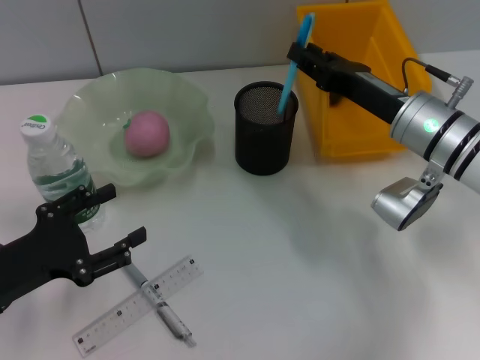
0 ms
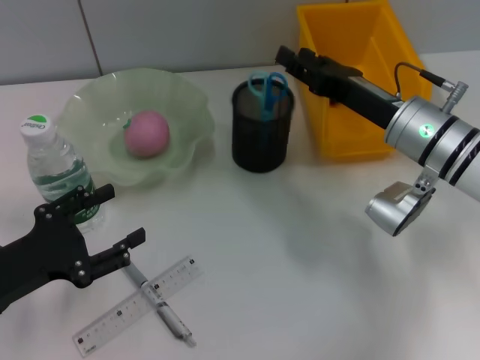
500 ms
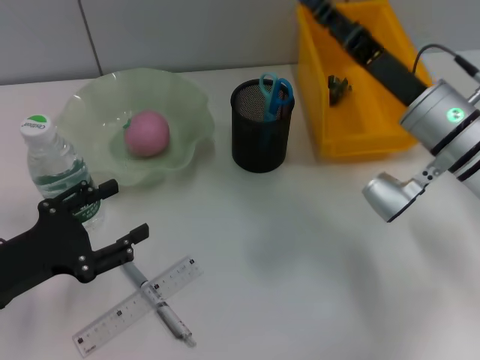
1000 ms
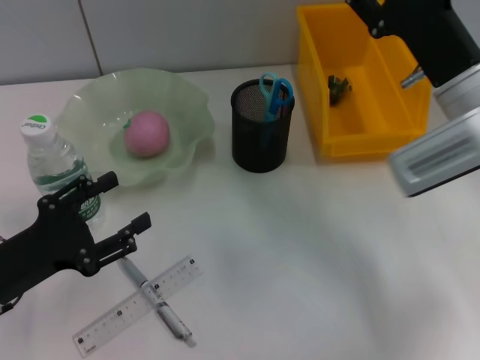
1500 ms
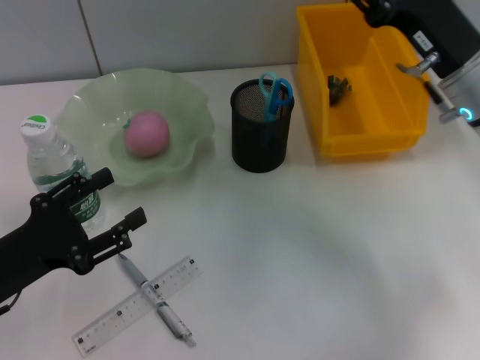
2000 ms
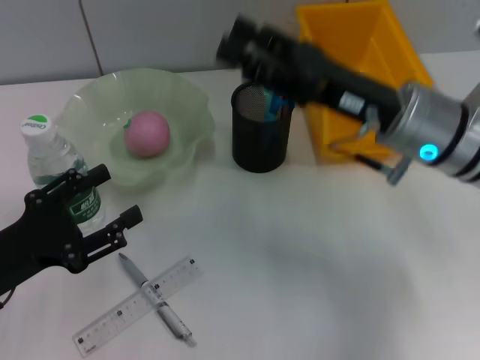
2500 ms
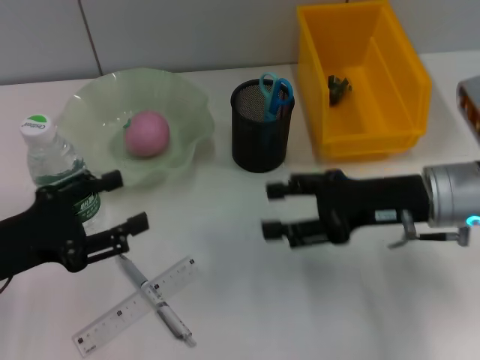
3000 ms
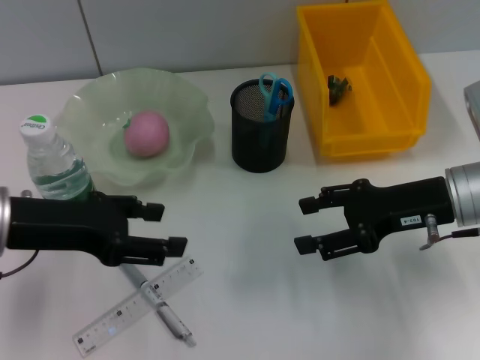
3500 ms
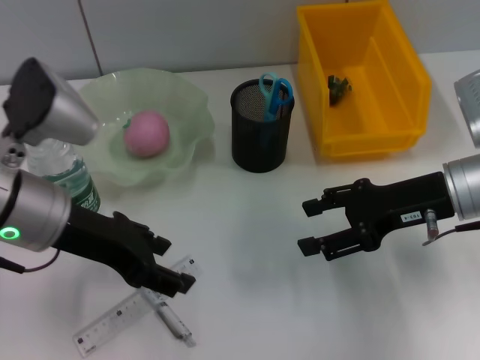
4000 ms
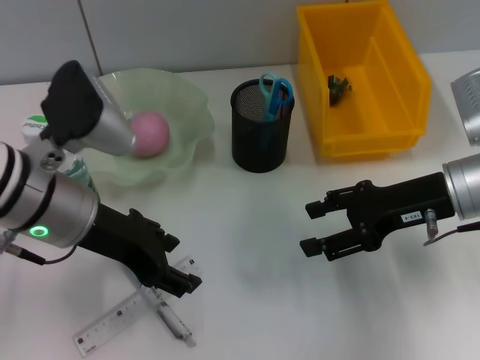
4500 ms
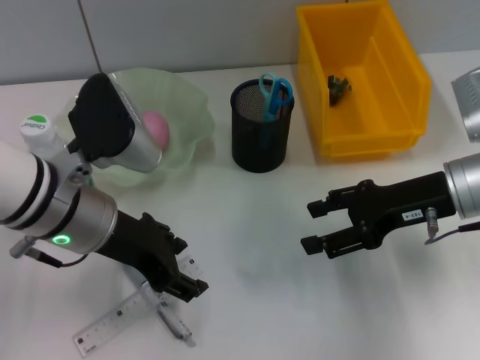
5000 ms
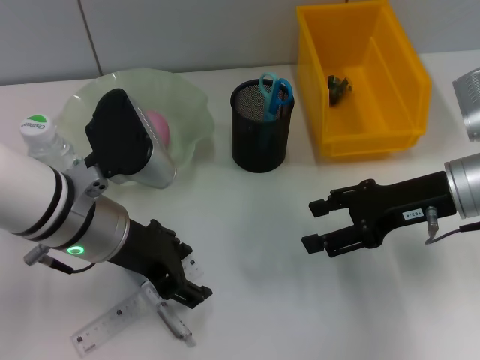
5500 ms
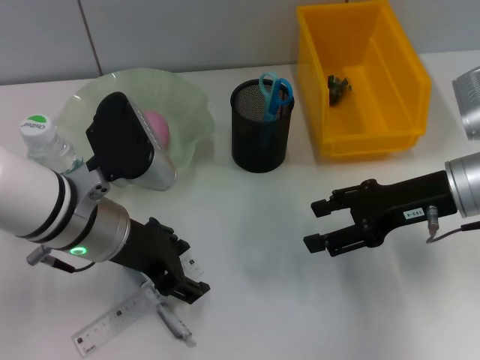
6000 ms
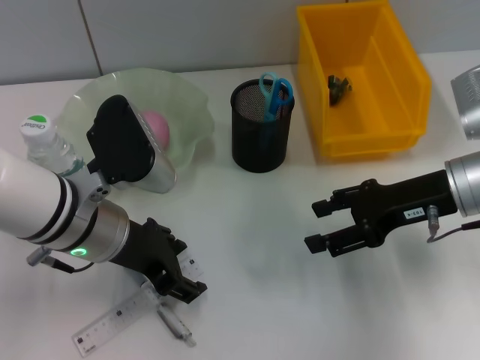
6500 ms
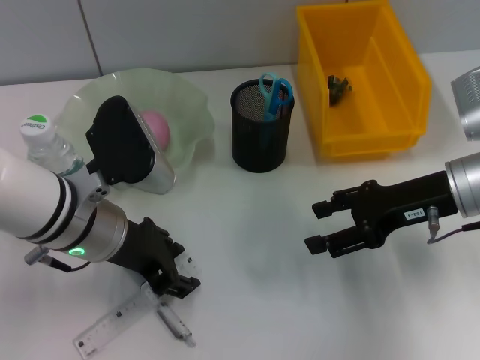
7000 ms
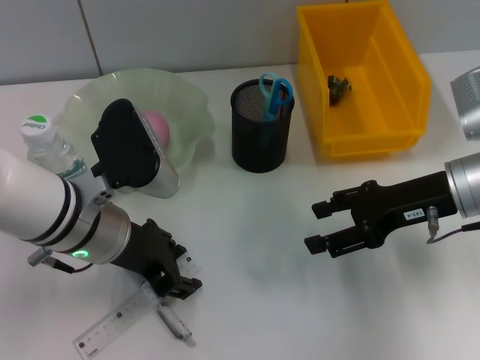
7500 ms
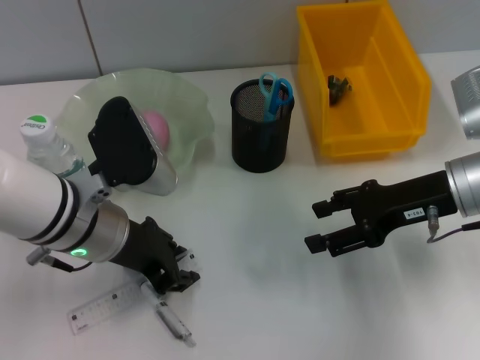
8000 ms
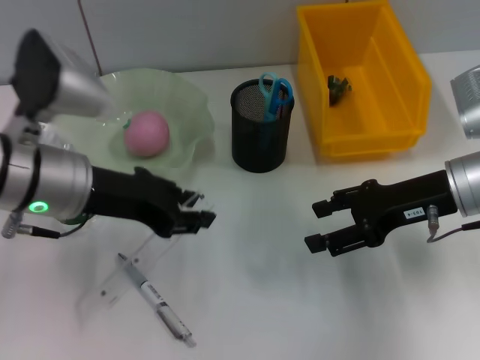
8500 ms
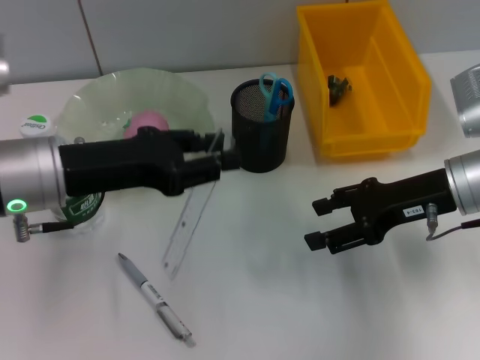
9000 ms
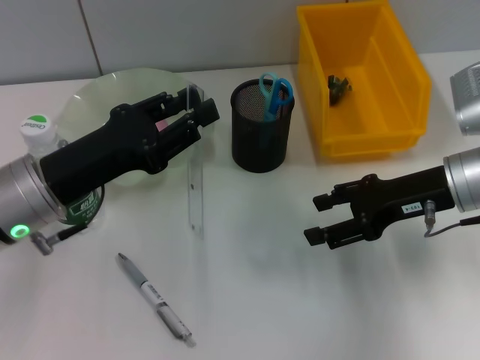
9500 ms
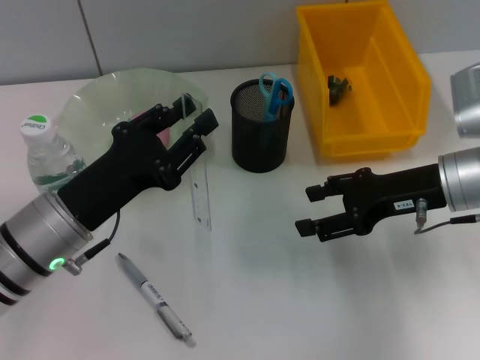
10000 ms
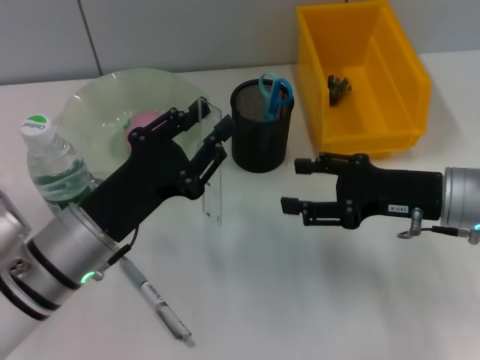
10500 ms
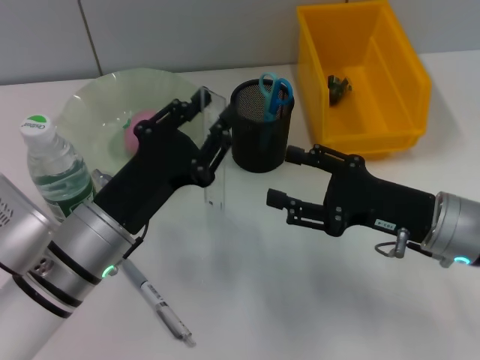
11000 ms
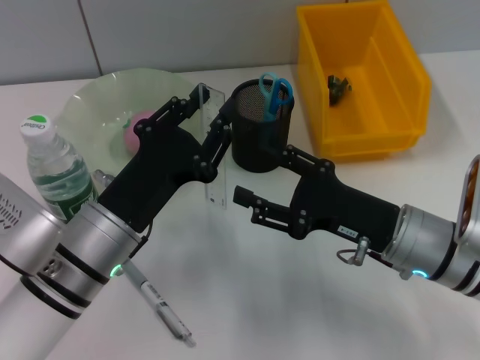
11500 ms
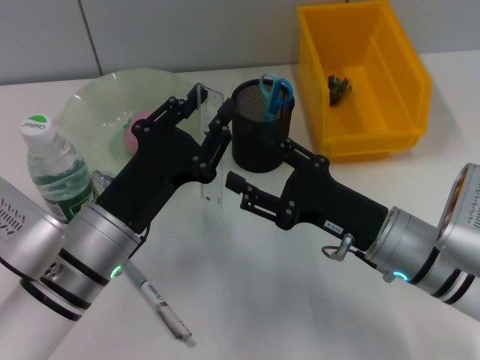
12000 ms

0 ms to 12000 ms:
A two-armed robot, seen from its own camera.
Step, 1000 ms to 7500 ms: Grab the ruler with the left hand.
0 ms to 2000 ms: The right gripper heads upward, covering approximately 5 cm, and opens.
2000 ms to 4000 ms: The left gripper is displaced upward, to the right and forward by roughly 15 cm.
4000 ms to 6000 ms: The left gripper moves approximately 5 cm.
6000 ms to 8000 ms: The left gripper closes up.
8000 ms to 10000 ms: The left gripper changes place by approximately 5 cm.
10000 ms to 12000 ms: The right gripper shifts roughly 10 cm to the left, backward and downward.

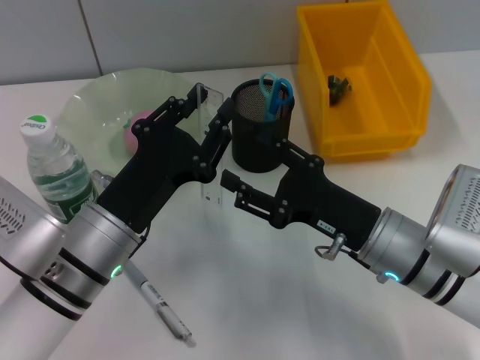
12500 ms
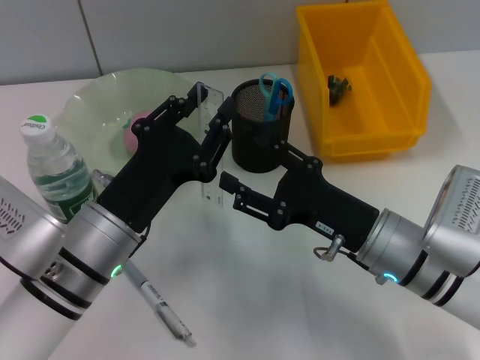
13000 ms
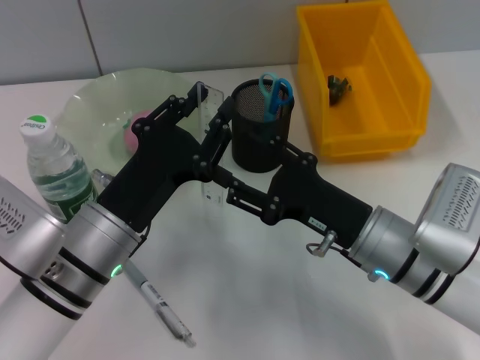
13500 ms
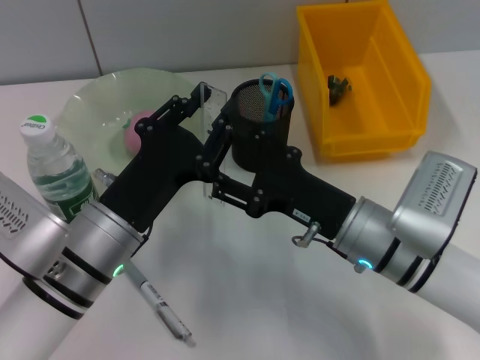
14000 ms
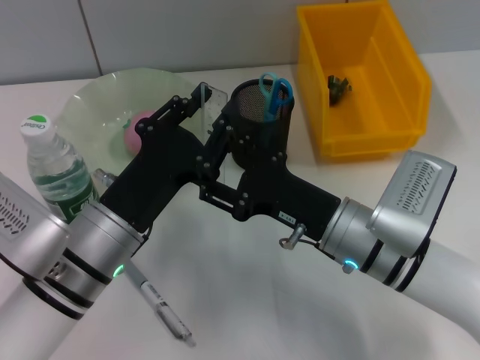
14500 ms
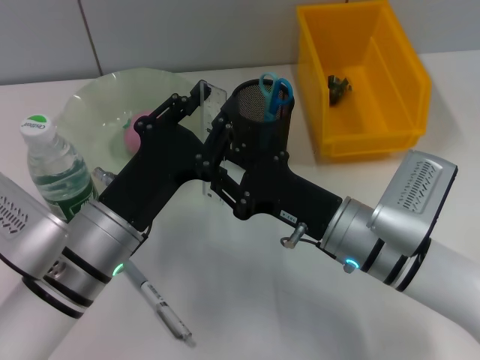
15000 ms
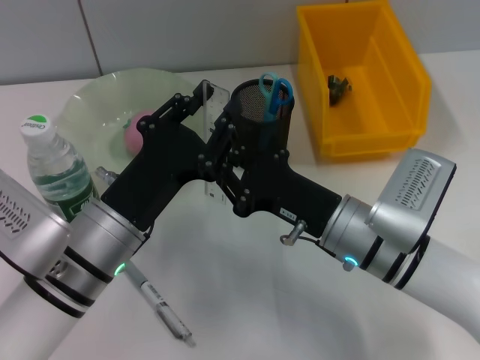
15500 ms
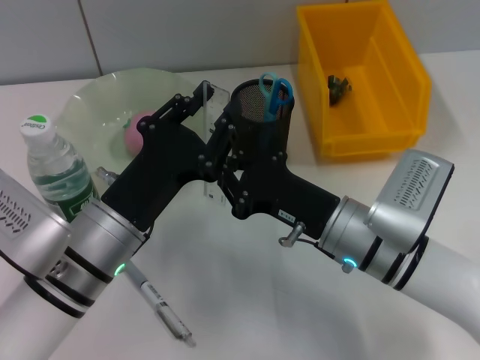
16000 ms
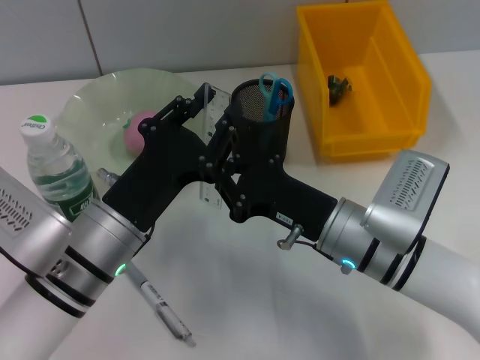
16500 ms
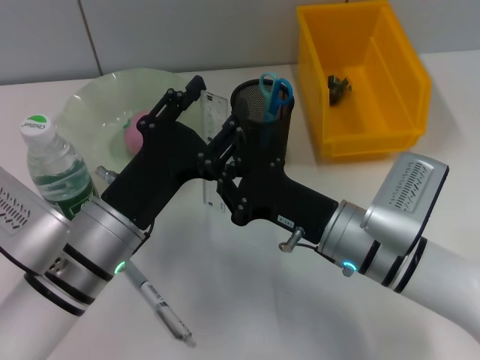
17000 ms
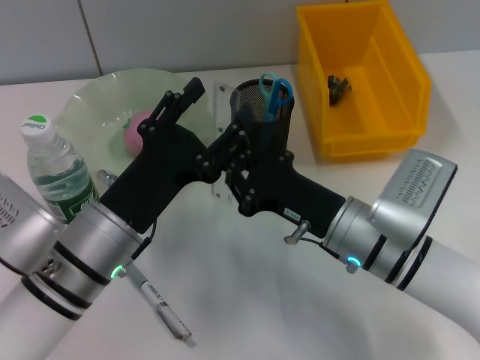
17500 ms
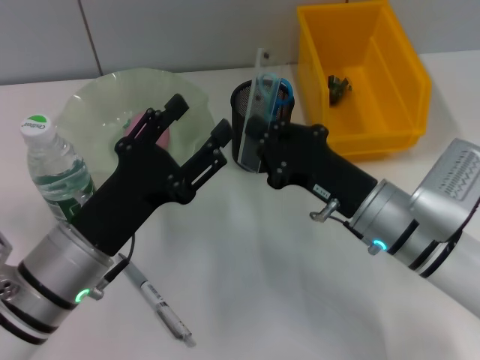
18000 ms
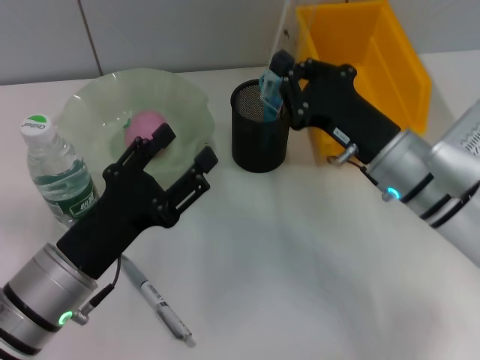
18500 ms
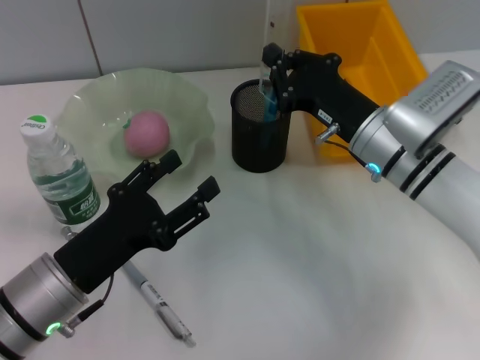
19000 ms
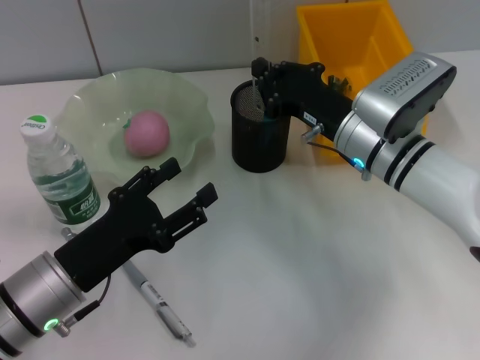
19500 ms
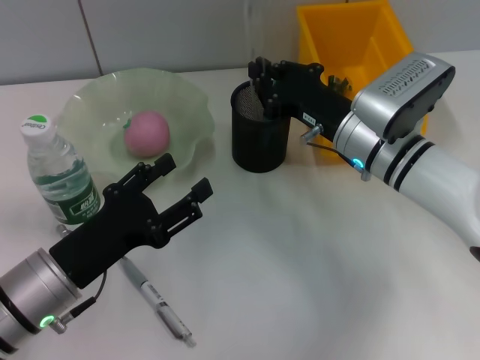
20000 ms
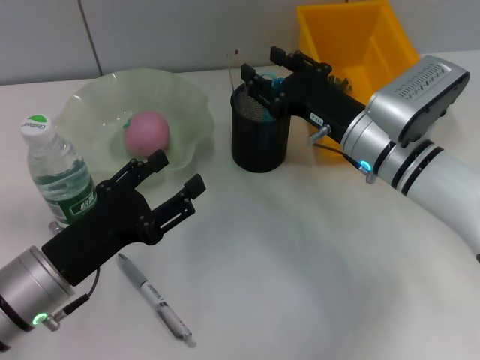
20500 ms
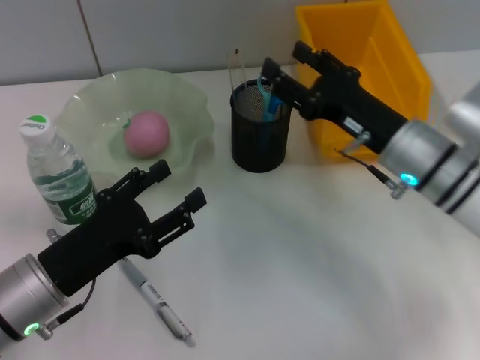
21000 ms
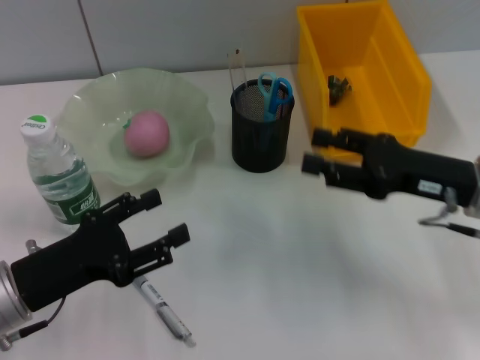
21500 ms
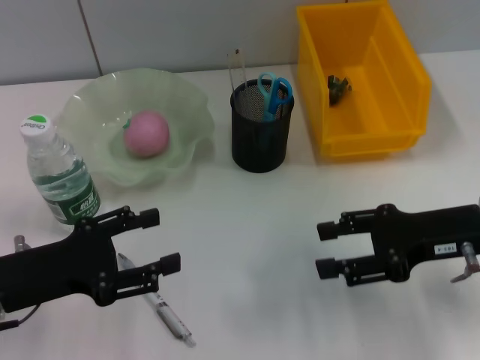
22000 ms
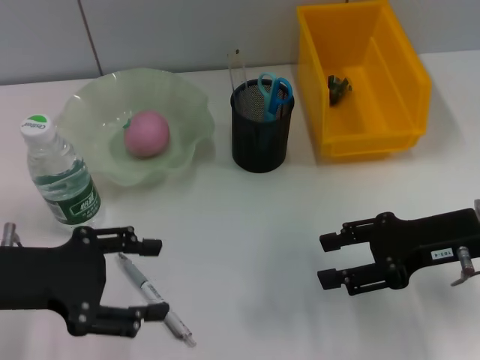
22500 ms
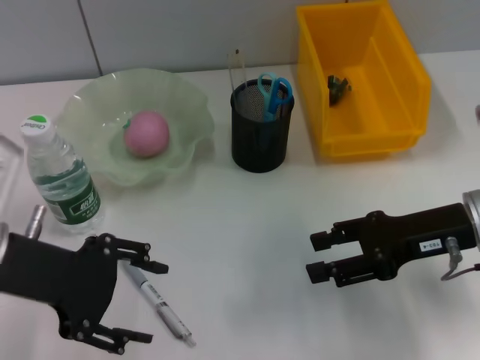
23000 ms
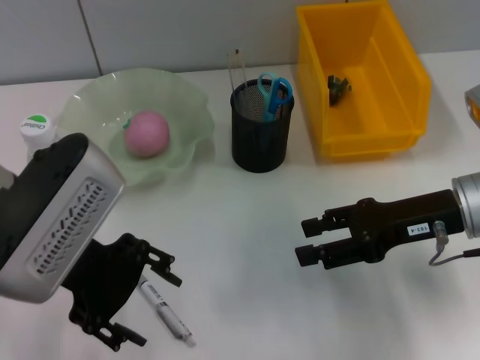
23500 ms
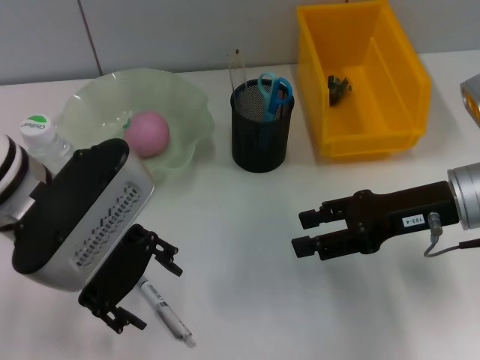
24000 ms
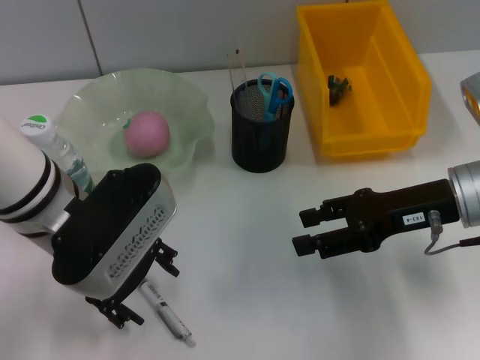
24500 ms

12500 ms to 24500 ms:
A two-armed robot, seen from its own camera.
Step, 12500 ms to 17000 ms: Pass the ruler from the left hand to the right hand.
Step, 17500 ms to 20000 ms: Place the ruler into the pen holder with the right hand.
12500 ms to 14500 ms: There are only small adjustments of the grippers.
14500 ms to 16500 ms: The right gripper closes its fingers.
16500 ms to 18500 ms: The left gripper moves approximately 5 cm, and opens up; the right gripper ends up approximately 5 cm from where it was.
18500 ms to 20500 ms: The right gripper opens up.
20500 ms to 22500 ms: The left gripper shifts about 10 cm upward and to the left; the right gripper travels to the right and backward by some 15 cm.
22500 ms to 24500 ms: The left gripper moves to the right and forward, approximately 15 cm.

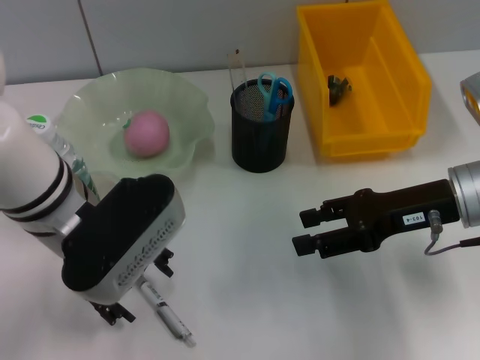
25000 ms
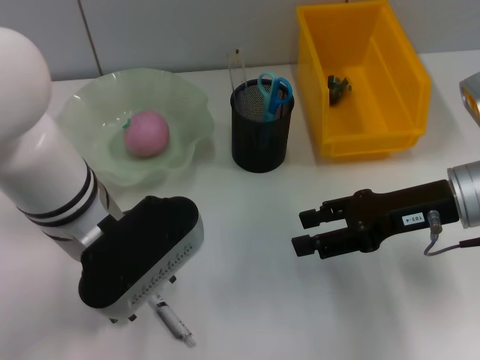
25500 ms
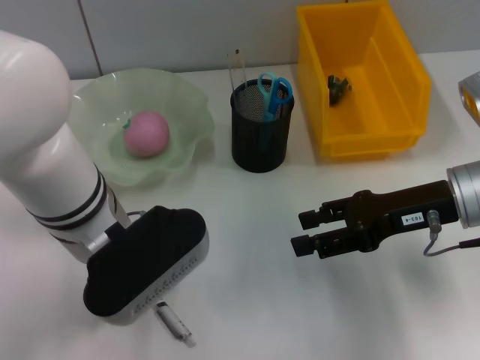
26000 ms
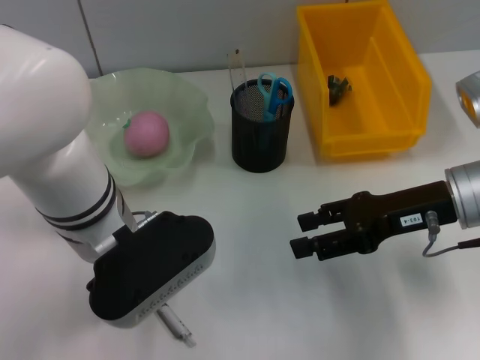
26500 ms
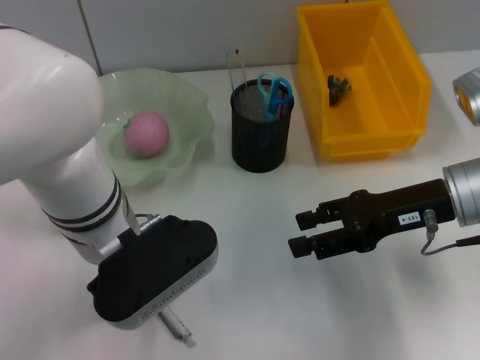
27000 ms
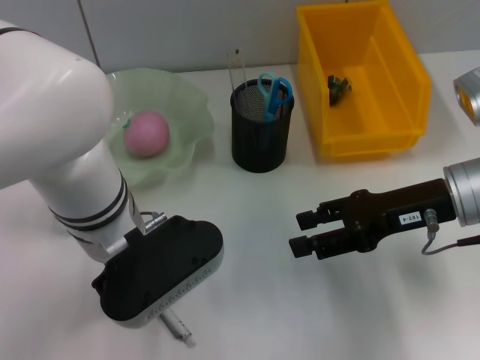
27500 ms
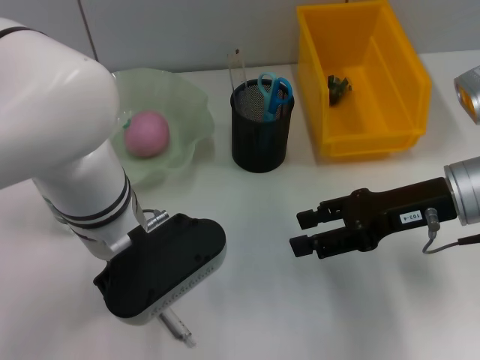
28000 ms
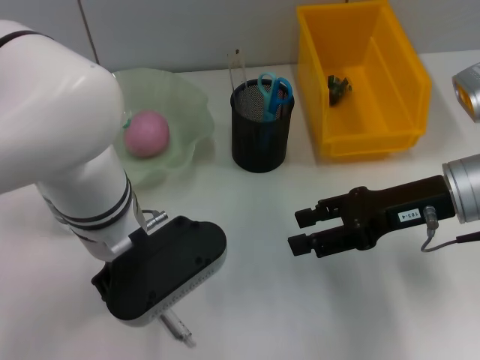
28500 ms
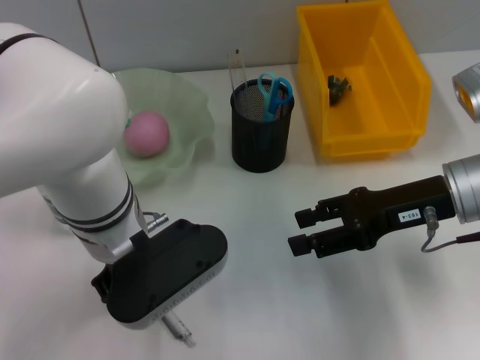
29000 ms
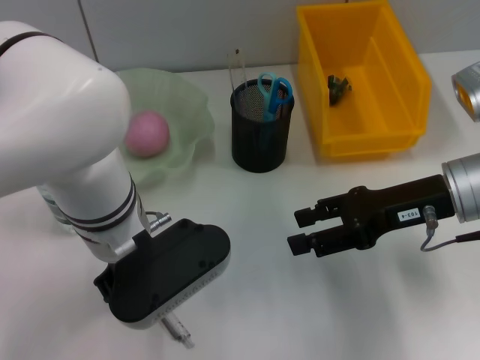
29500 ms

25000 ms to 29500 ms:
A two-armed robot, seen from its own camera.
25000 ms to 27000 ms: The grippers move only a little.
27000 ms to 29500 ms: The left gripper closes.
